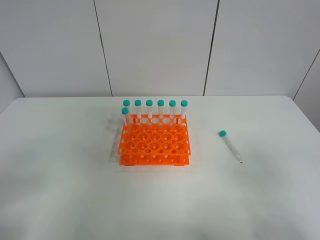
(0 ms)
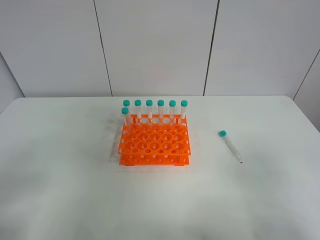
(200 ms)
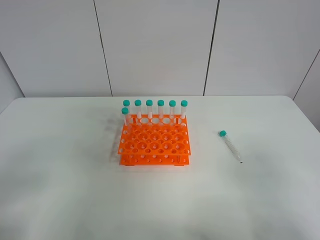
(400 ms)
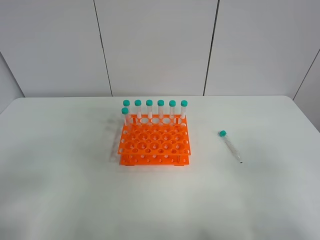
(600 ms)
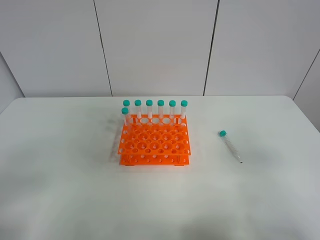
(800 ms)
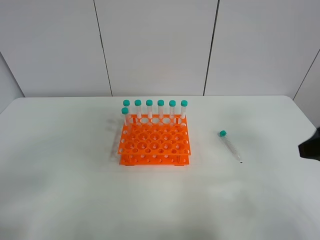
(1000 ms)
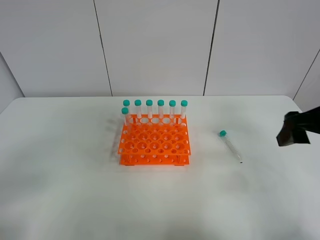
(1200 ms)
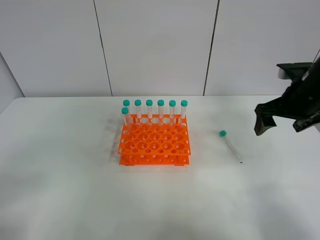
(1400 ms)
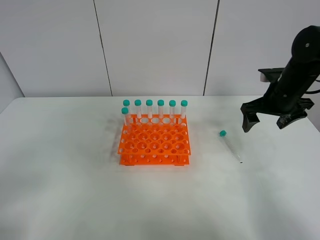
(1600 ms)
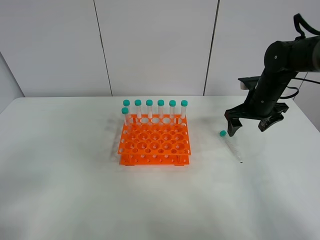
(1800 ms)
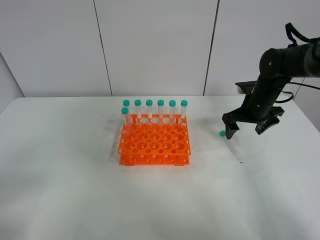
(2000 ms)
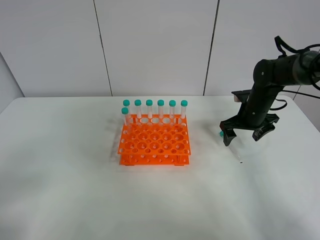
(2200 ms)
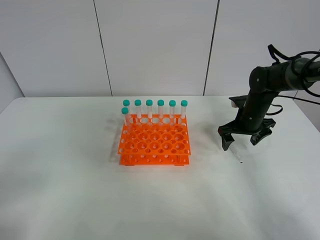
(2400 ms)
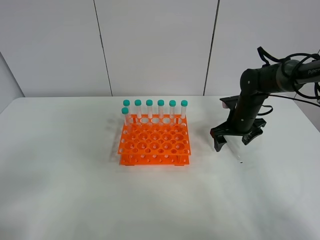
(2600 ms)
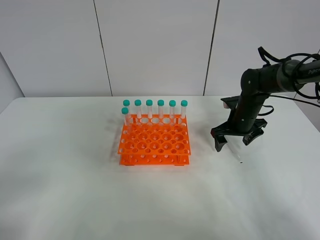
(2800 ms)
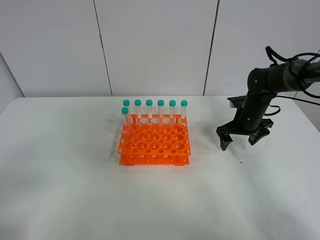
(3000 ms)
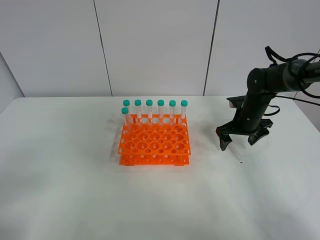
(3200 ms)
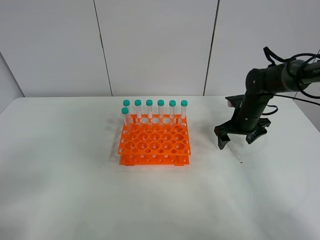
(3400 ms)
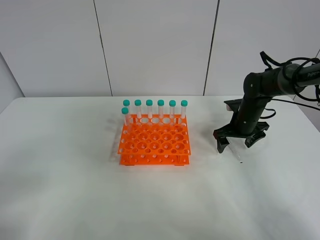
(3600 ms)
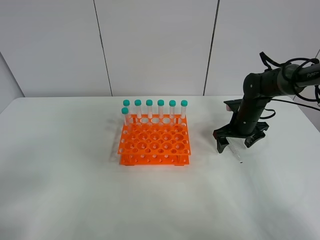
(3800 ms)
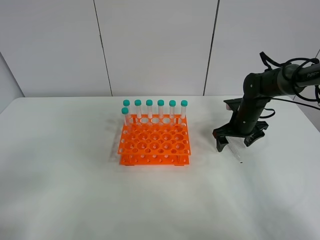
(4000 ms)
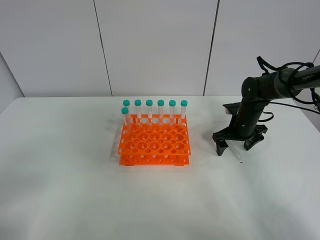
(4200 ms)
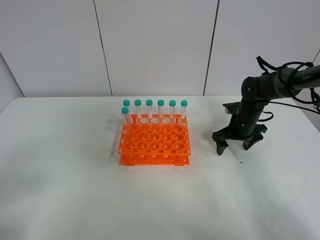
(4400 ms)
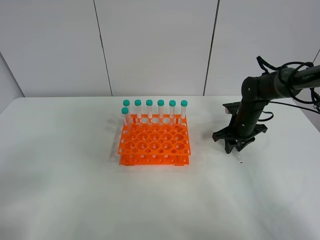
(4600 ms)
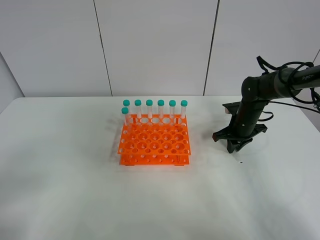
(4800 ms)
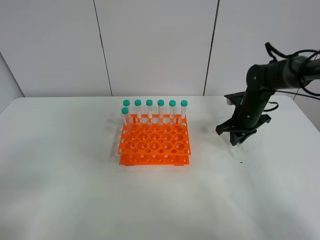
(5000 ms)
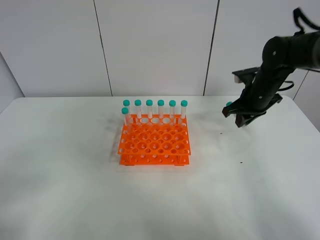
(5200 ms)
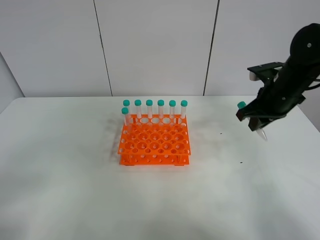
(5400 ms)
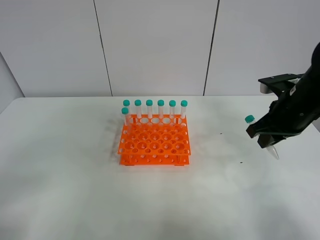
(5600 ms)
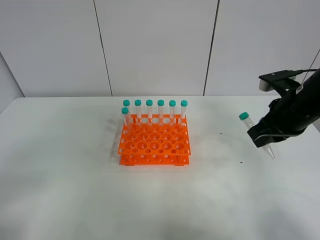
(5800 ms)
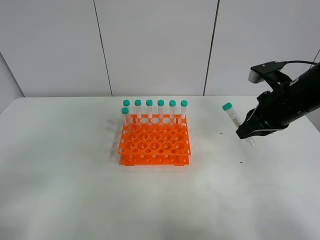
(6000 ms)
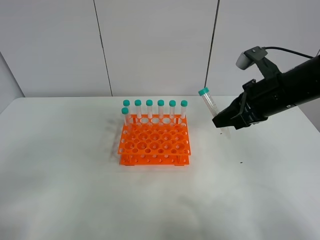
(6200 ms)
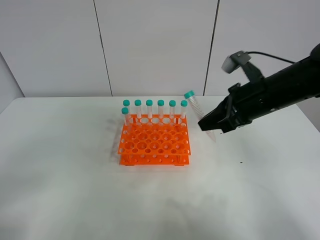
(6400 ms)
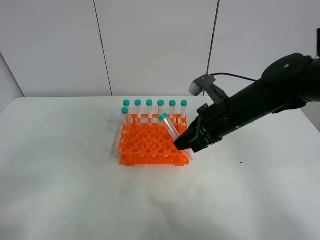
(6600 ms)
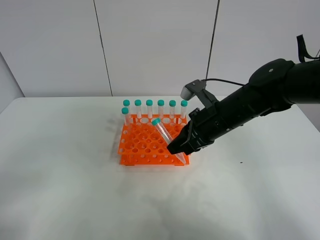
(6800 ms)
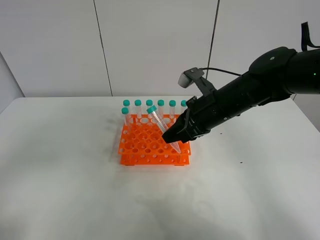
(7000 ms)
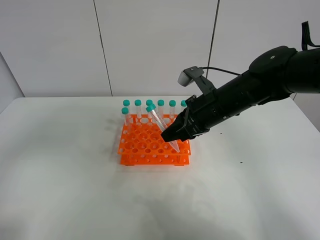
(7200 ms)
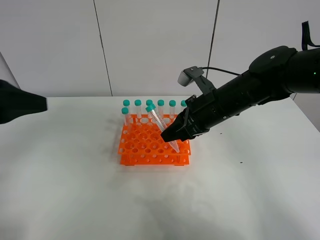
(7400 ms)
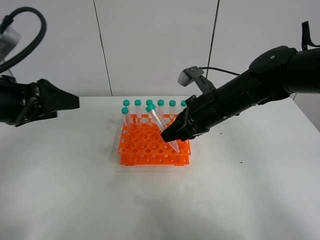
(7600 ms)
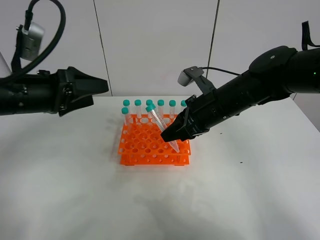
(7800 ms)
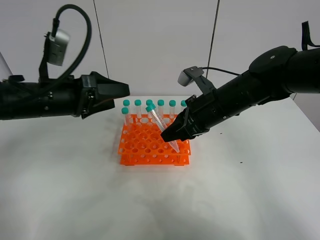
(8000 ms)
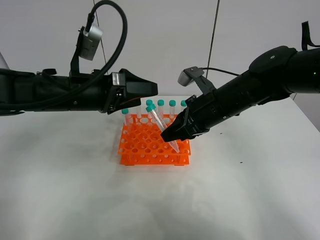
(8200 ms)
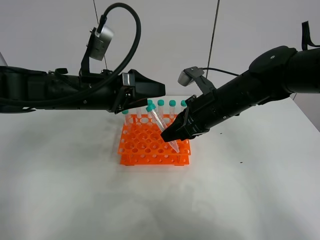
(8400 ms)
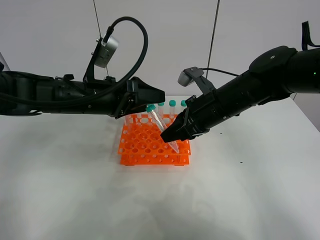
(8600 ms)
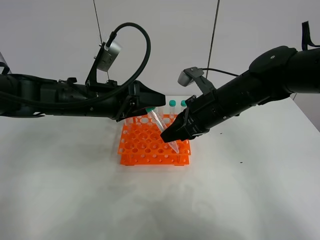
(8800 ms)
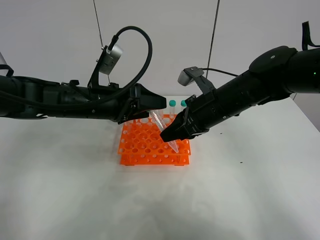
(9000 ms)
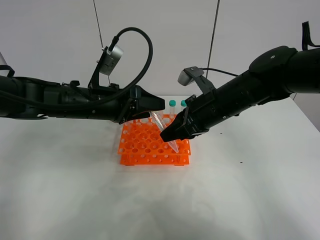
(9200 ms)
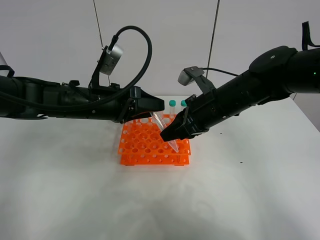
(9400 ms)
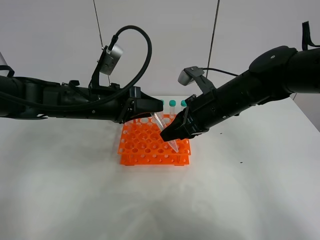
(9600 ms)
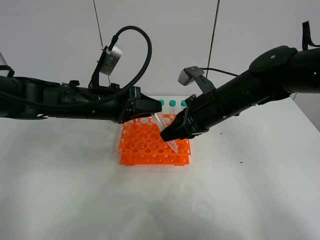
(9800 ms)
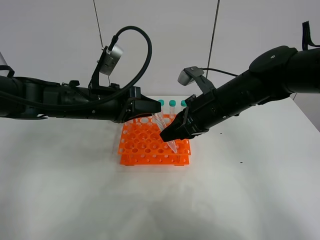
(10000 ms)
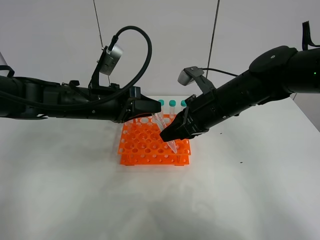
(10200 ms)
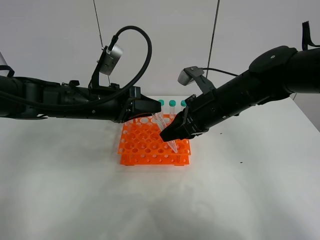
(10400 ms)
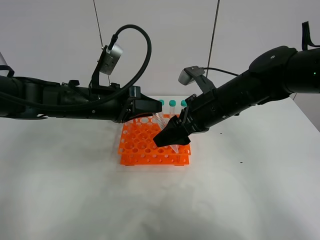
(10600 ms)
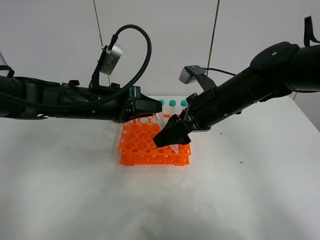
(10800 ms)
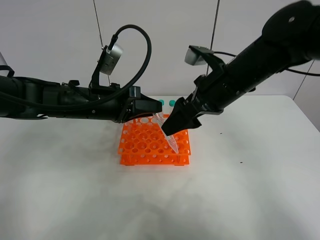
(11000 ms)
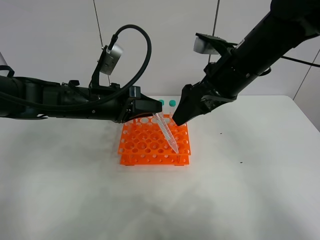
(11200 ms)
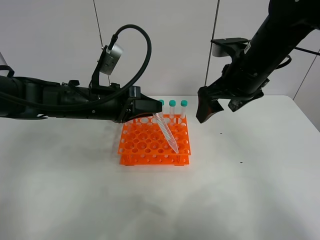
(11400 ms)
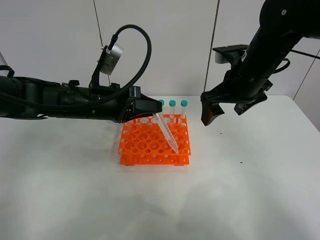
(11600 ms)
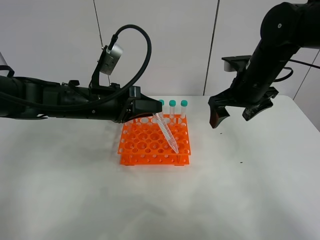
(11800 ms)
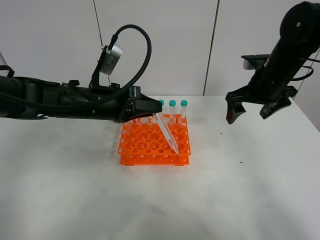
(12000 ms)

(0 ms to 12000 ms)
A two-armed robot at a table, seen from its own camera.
Task of the whole recording: Put the test tube on the table back onto the test tube rack.
Step, 0 ms - 4800 ms: Pick up the test tube with the right gripper.
Step, 5000 ms - 10600 ms: Move the test tube from the right gripper to the left gripper.
0 ms - 1600 ms: The right gripper travels forward by about 35 cm.
1600 ms - 3000 ms: The right gripper heads downward, covering roughly 10 cm.
3000 ms - 4400 ms: The grippers move only a little.
4400 ms - 6000 ms: The right gripper travels upward and backward by about 20 cm, and closes.
6000 ms - 7600 ms: The left gripper is displaced forward by approximately 20 cm; the right gripper travels to the left by some 10 cm.
7600 ms - 9000 ms: The left gripper travels to the right, forward and downward by roughly 15 cm.
9000 ms - 10400 ms: The left gripper closes.
10400 ms - 12000 ms: The right gripper travels to the right and forward by about 15 cm, and opens its fingers.

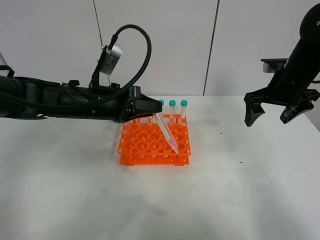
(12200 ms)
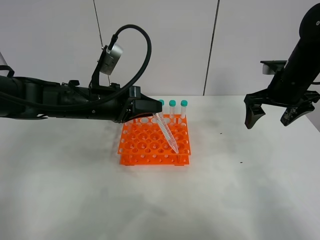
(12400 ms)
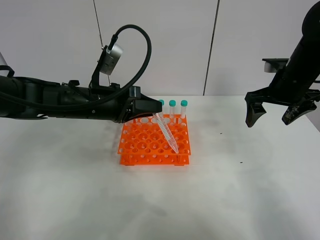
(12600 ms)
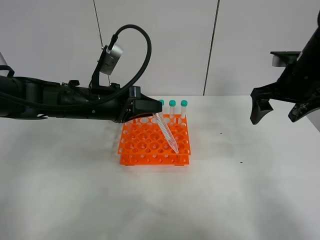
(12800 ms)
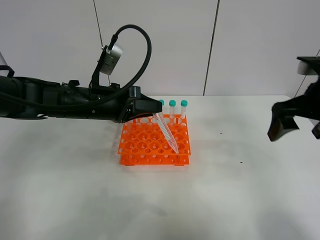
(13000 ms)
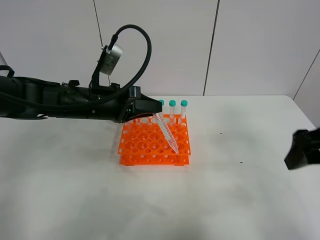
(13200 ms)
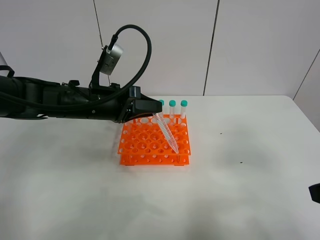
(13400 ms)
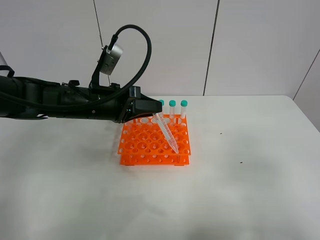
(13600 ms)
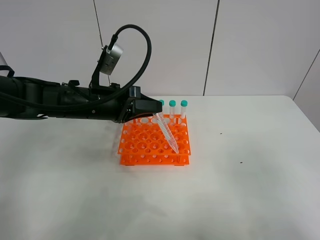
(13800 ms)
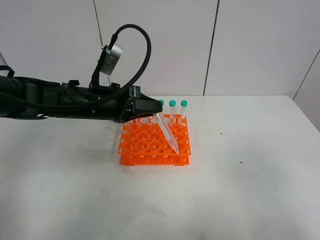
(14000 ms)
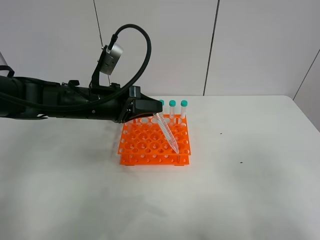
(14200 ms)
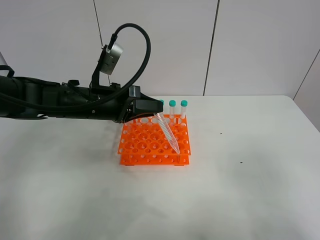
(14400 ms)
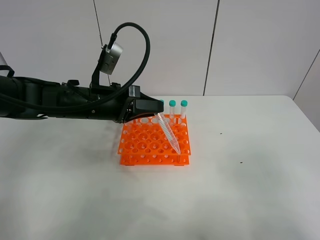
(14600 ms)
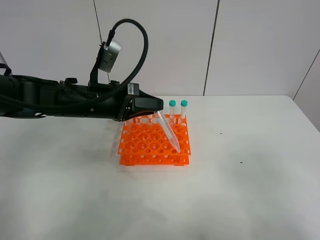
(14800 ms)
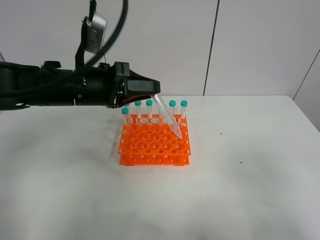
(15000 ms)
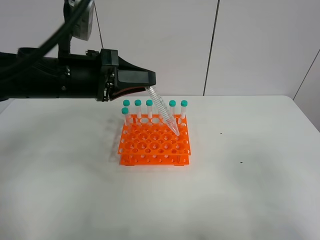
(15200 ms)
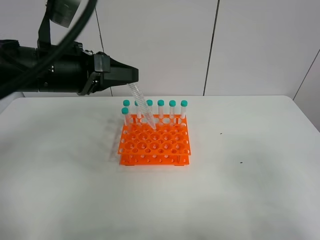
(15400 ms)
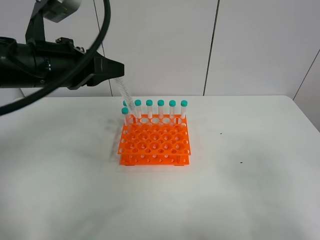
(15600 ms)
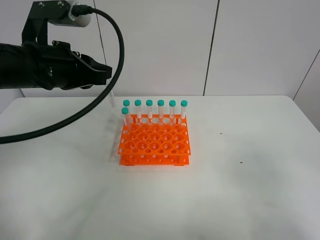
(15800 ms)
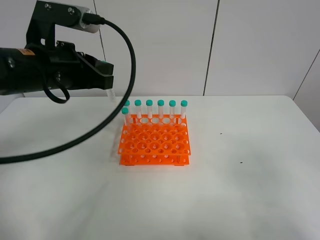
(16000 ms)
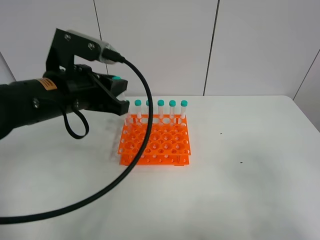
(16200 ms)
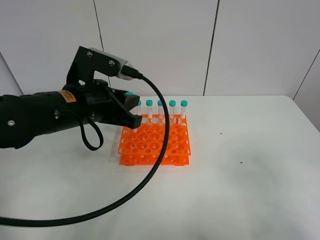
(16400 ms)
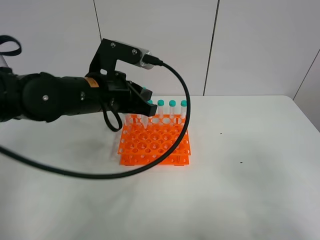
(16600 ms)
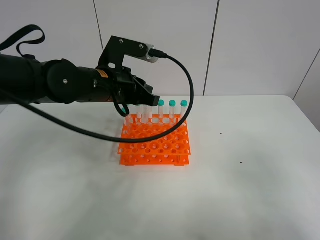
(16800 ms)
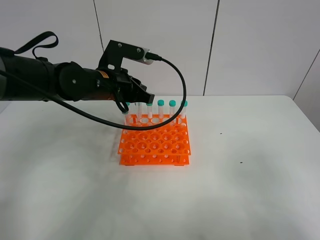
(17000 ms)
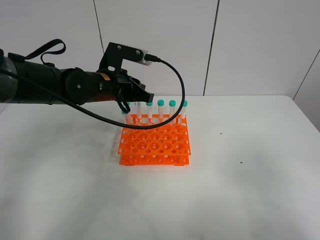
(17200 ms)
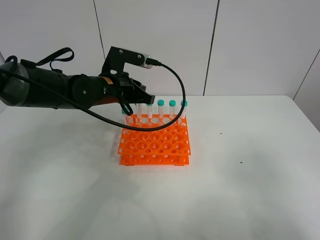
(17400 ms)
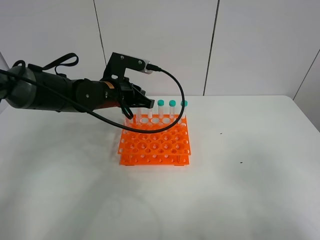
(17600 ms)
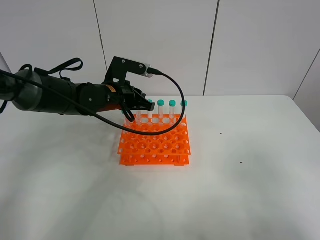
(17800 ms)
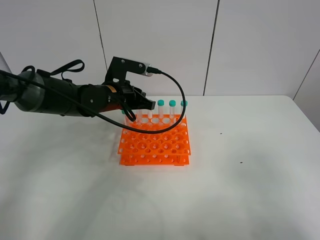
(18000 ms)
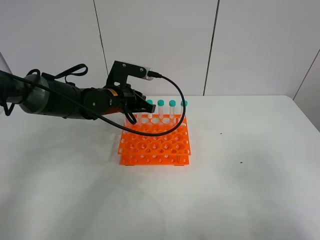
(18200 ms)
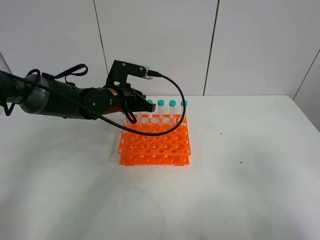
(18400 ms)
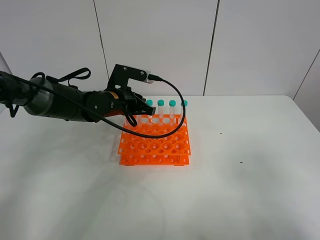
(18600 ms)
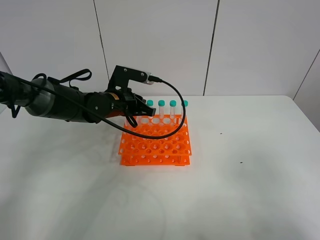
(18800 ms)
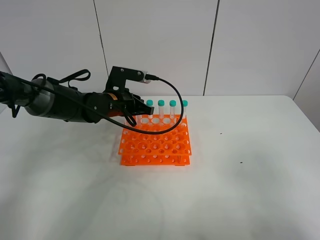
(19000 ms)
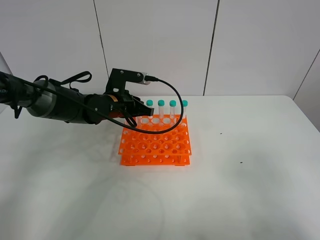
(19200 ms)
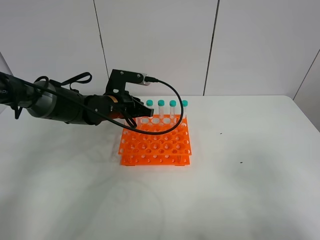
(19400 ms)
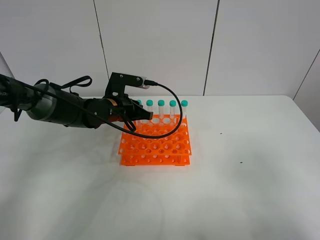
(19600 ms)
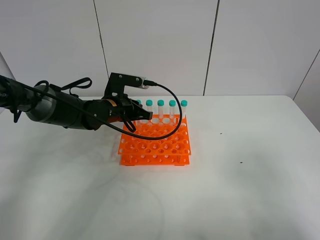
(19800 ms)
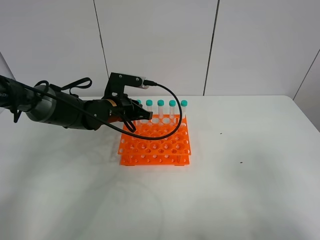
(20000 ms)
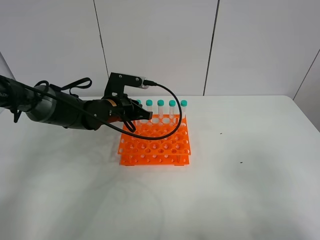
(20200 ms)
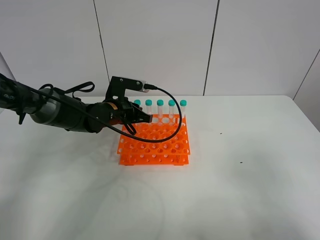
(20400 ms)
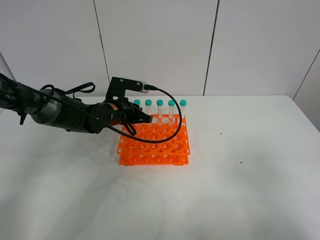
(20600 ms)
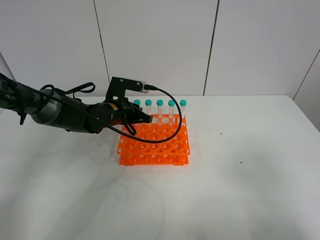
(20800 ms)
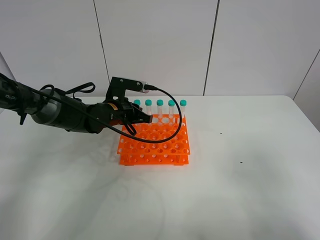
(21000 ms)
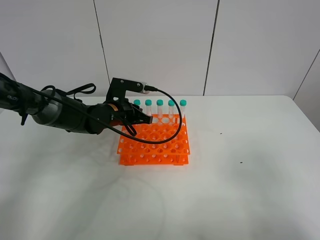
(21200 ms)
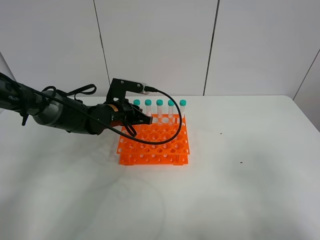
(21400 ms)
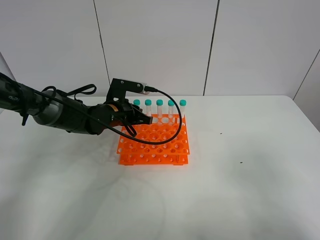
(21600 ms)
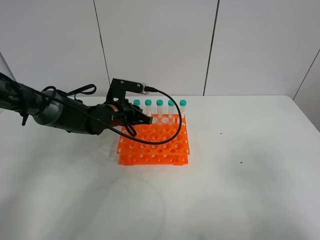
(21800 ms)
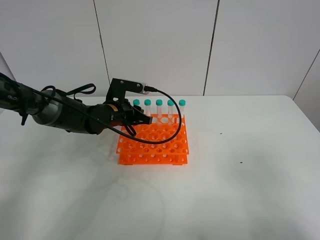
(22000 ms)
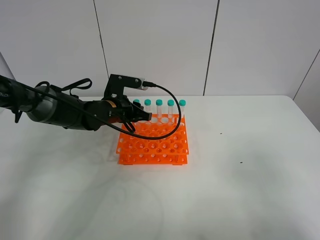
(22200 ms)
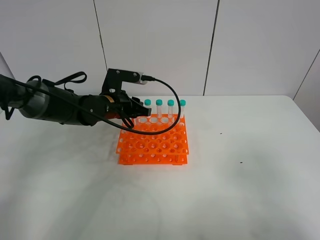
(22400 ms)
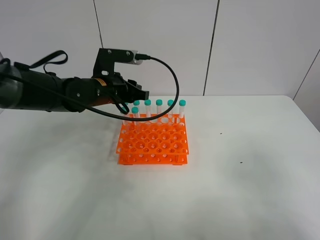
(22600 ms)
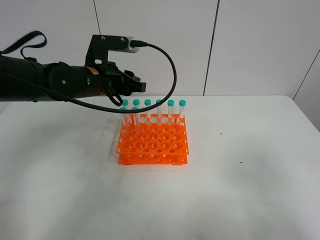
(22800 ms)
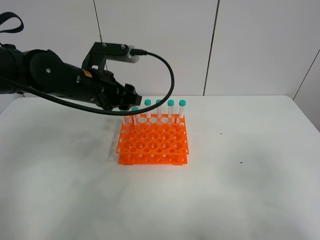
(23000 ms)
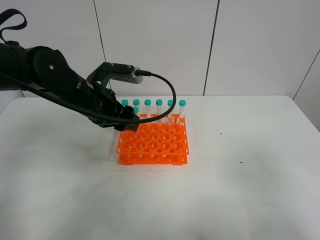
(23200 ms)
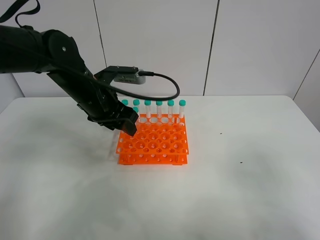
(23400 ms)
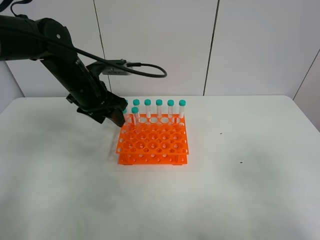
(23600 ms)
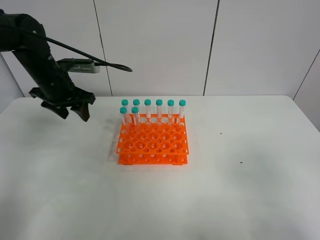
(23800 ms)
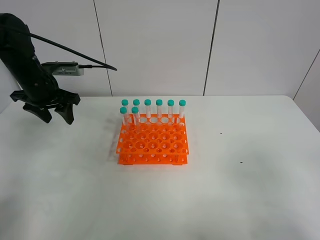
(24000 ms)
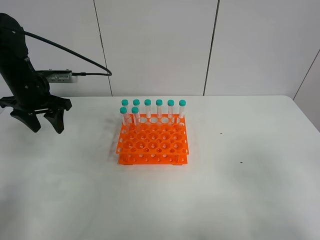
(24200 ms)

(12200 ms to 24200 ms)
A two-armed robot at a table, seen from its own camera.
Task of the whole recording: Put the test tube on the table back onto the test tube rack.
Step, 12200 ms - 22200 ms: Place the test tube on the test tube rack with the left gripper.
12200 ms - 13800 ms: The right gripper is displaced backward by about 35 cm.
13800 ms - 15200 ms: The left gripper travels upward by some 10 cm.
15200 ms - 16600 ms: The left gripper moves some 5 cm.
16600 ms - 18200 ms: The left gripper goes approximately 10 cm forward and downward.
18200 ms - 21200 ms: The grippers stay close to where they were, moving slightly.
21200 ms - 22600 ms: The left gripper heads upward, covering some 10 cm.
22600 ms - 24200 ms: The left gripper moves to the left, approximately 15 cm, and opens its fingers.
